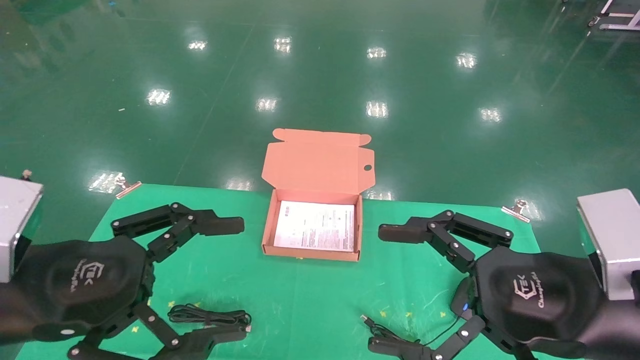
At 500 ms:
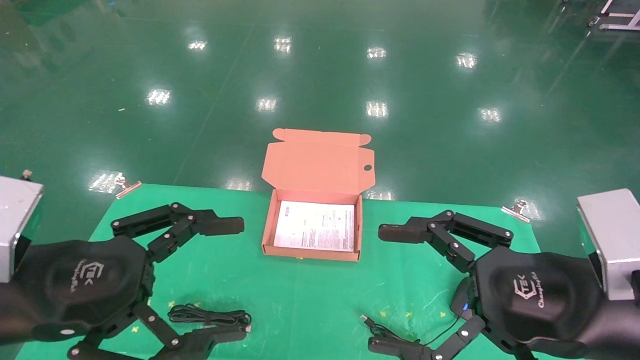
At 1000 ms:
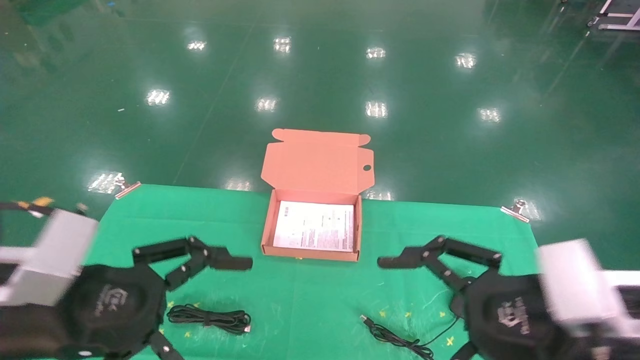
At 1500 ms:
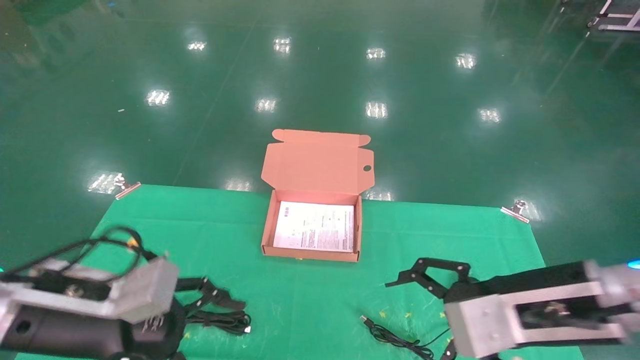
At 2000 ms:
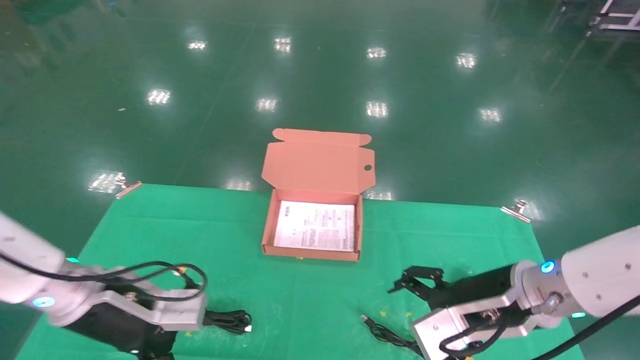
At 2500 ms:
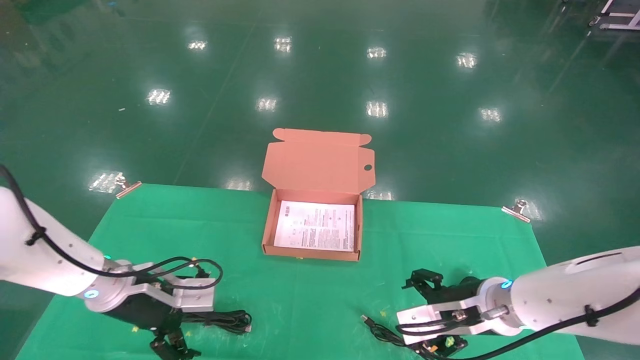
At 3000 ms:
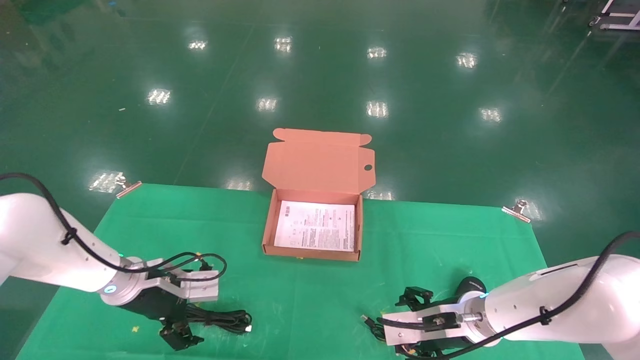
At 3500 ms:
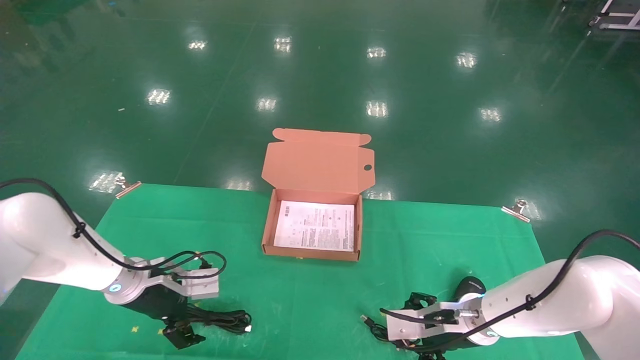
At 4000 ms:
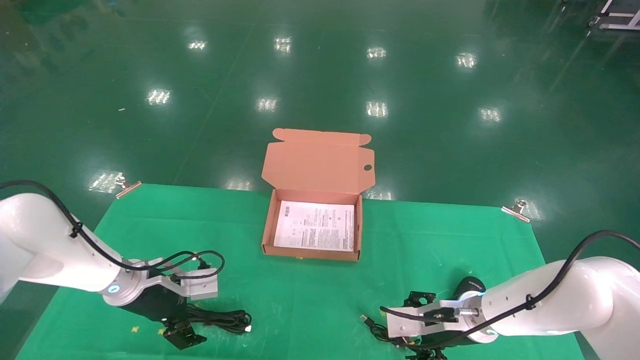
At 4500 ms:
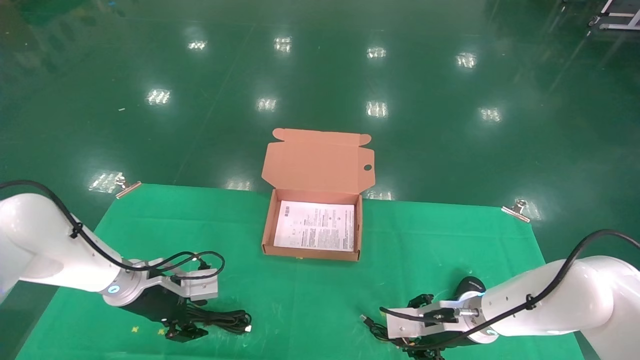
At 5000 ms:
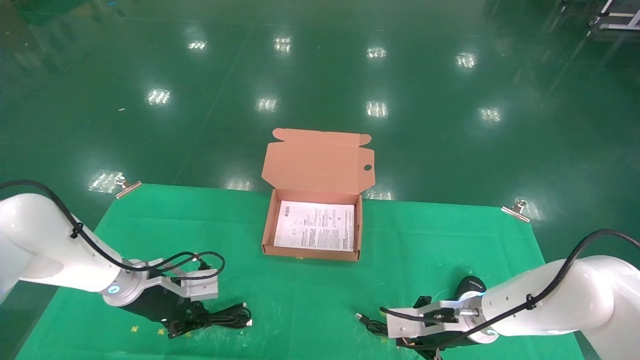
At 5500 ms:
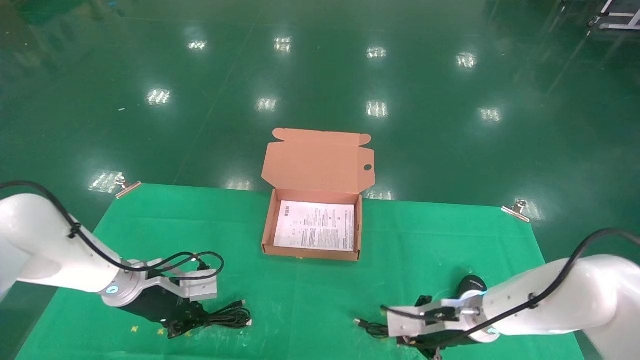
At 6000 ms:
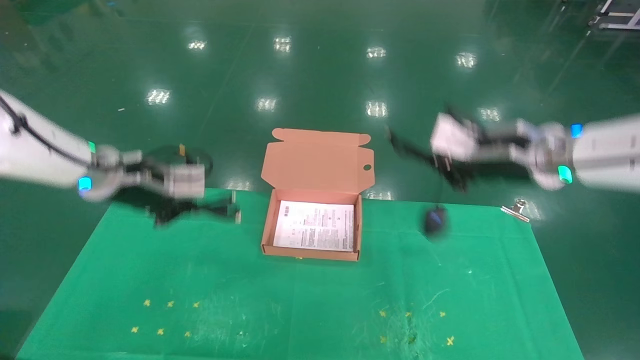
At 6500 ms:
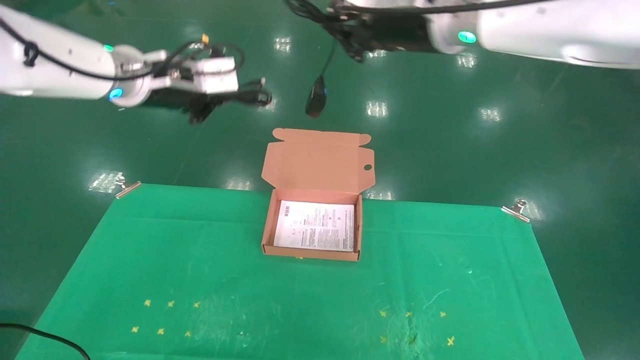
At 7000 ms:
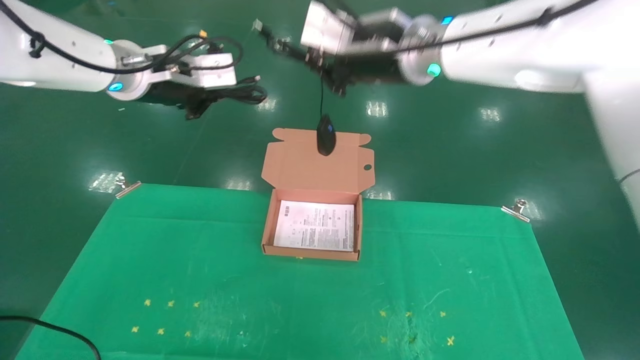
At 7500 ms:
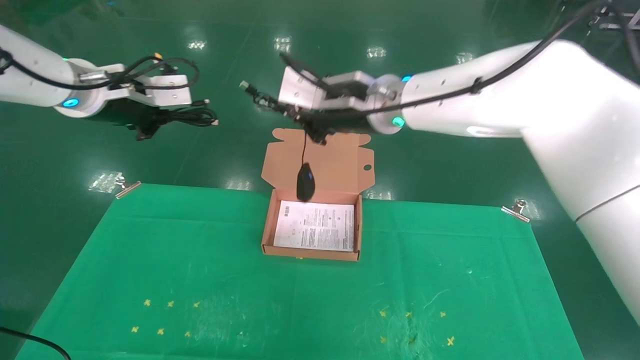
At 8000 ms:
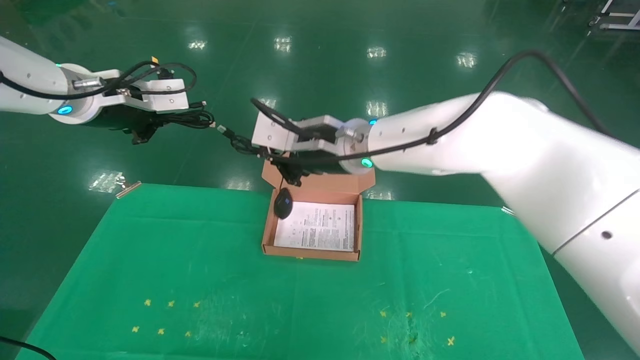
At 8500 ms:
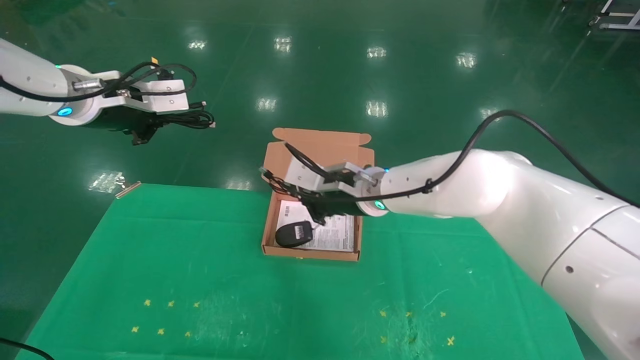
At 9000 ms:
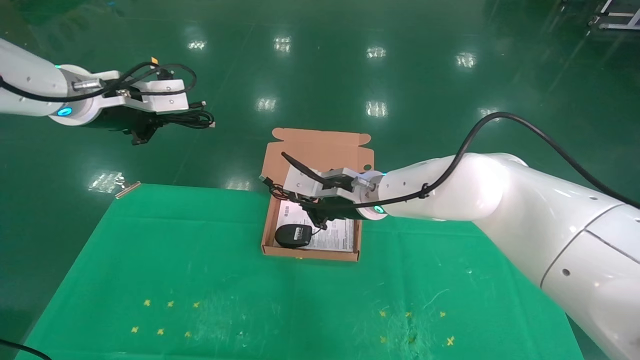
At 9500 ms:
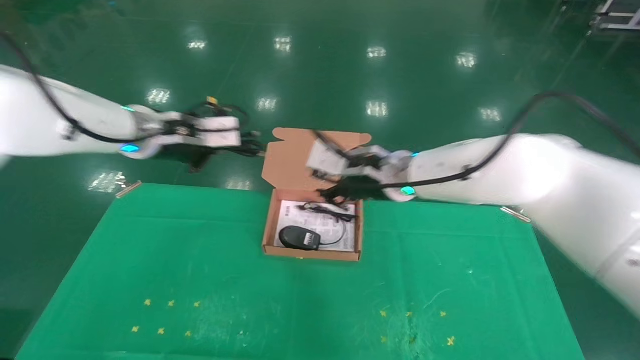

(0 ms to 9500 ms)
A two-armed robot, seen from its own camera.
Task of the whole recording: grasp data cable left put into box grasp mouse right put into box.
Step, 1000 ms - 5500 ms: Grab and pick up both the mouse and power cord from the accessory packaging area at the same time.
0 ms - 2000 ms: Both grippers travel together forward and downward, about 15 cm.
2000 ms - 4000 ms: The right gripper heads downward and forward, covering roughly 15 cm. The left gripper shifts about 10 cm forward and downward.
4000 ms - 5500 ms: The left gripper closes its fingers; the right gripper closes its fingers.
5500 ms - 7500 ms: The left gripper is displaced upward by about 30 cm. Meanwhile the right gripper is displaced upward and to the left by about 30 cm.
7500 ms - 9500 ms: The left gripper is displaced downward and to the right by approximately 10 cm, while the right gripper is displaced downward by approximately 10 cm.

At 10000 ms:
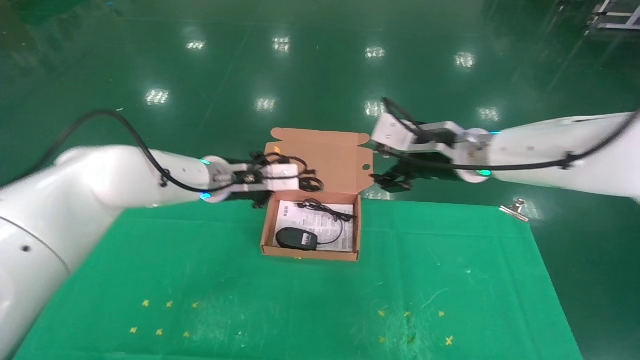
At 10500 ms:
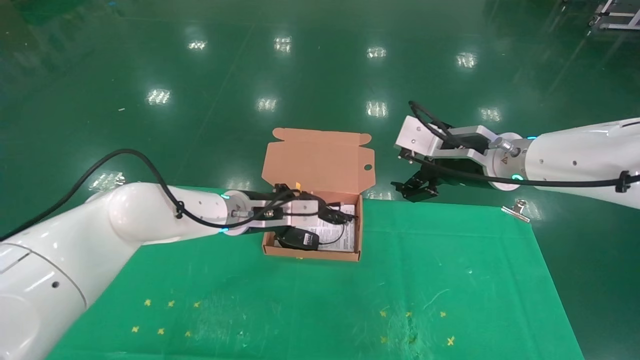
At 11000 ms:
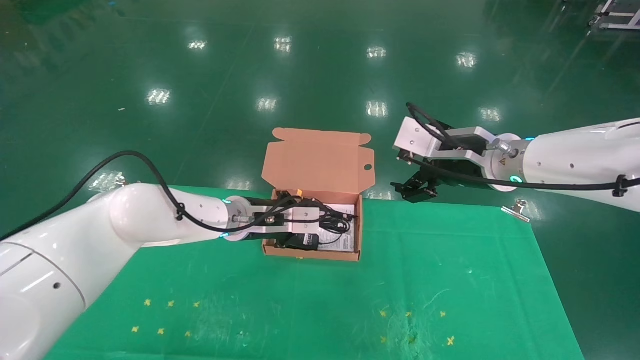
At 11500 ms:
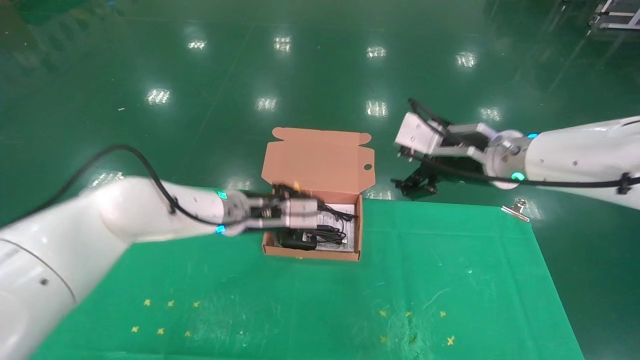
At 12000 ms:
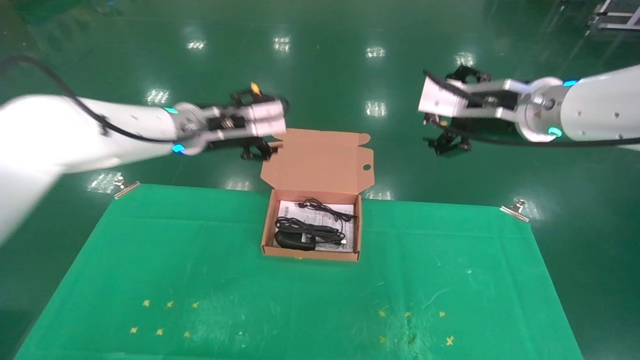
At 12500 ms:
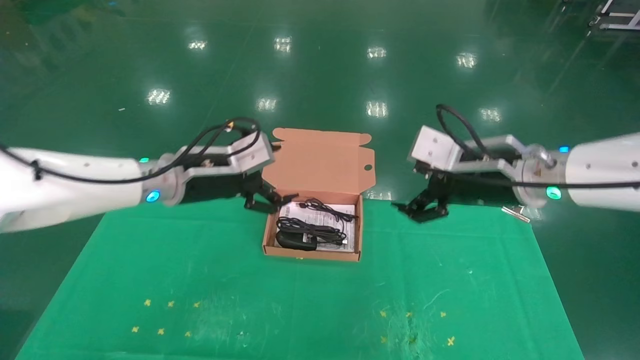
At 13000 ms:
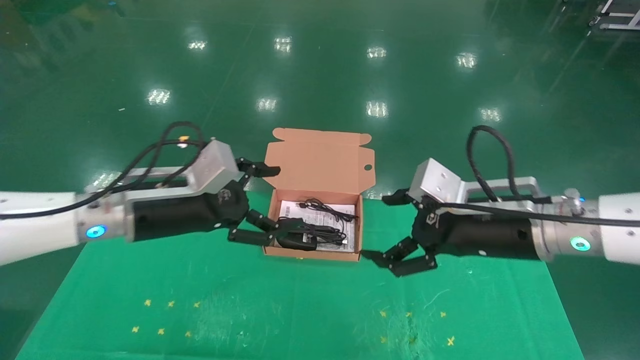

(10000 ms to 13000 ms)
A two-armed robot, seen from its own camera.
Task of the whole recording: grasp data cable left put into box grasp mouse right put into box.
10000 ms - 11500 ms: The right gripper ends up roughly 5 cm from where it was.
11500 ms - 13000 ms: The left gripper travels backward and to the left by about 15 cm, and opens up; the right gripper heads downward and backward, covering about 10 cm.
